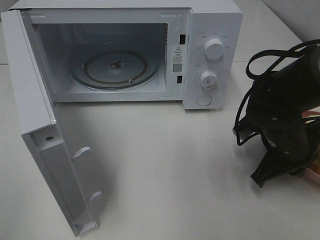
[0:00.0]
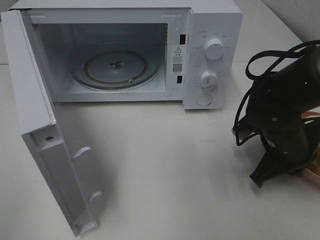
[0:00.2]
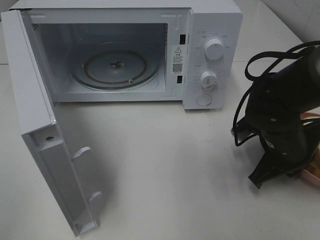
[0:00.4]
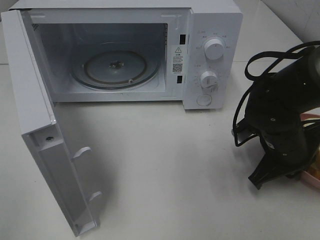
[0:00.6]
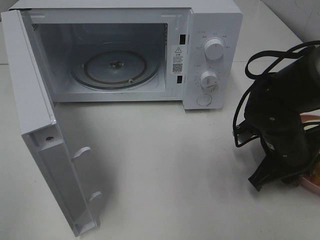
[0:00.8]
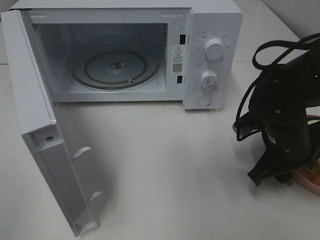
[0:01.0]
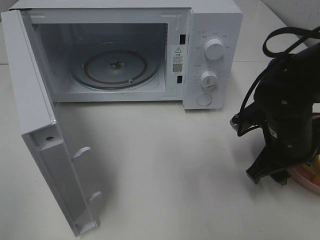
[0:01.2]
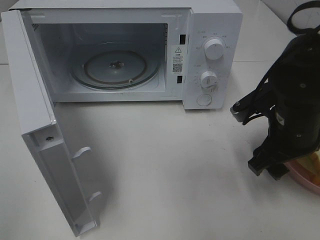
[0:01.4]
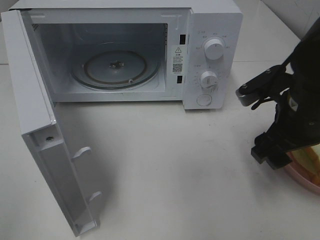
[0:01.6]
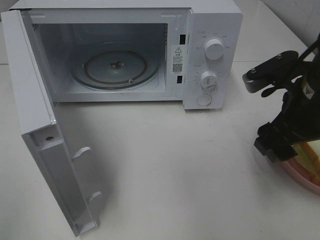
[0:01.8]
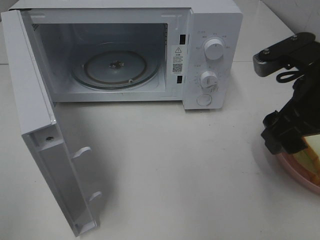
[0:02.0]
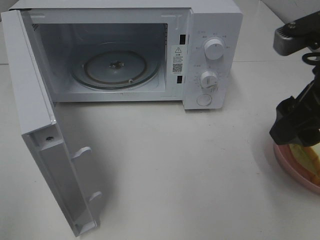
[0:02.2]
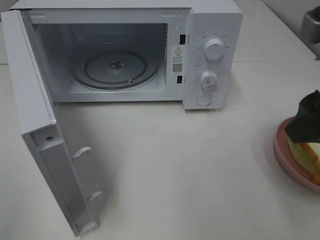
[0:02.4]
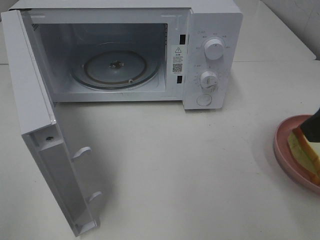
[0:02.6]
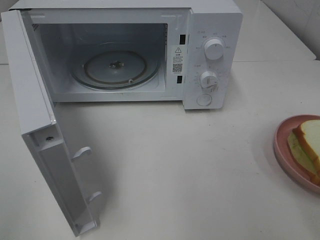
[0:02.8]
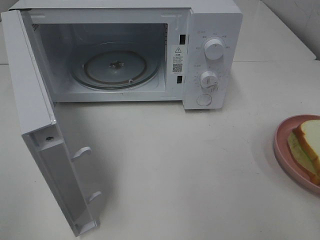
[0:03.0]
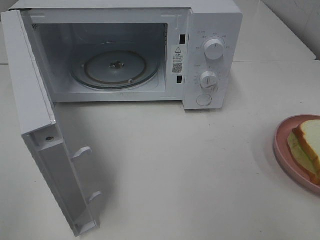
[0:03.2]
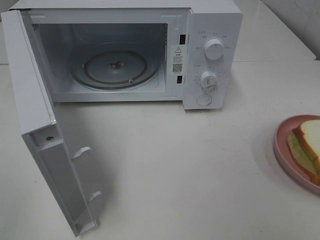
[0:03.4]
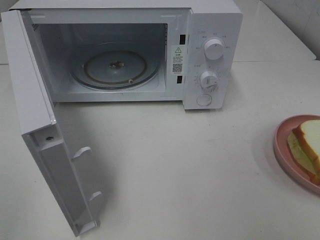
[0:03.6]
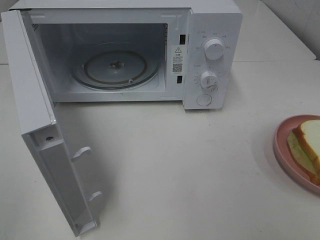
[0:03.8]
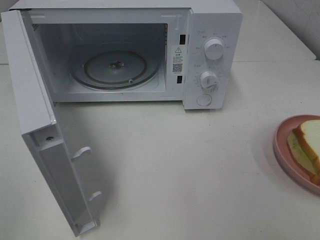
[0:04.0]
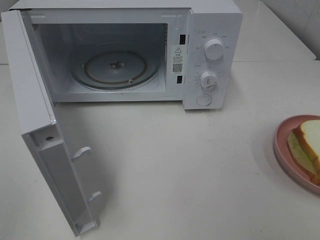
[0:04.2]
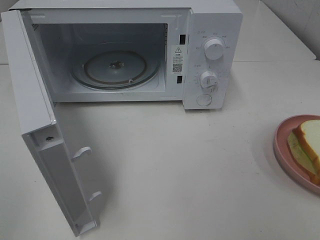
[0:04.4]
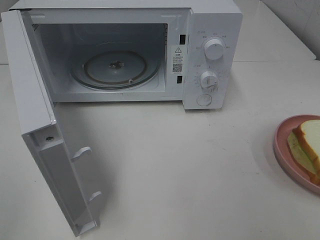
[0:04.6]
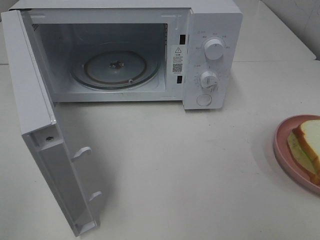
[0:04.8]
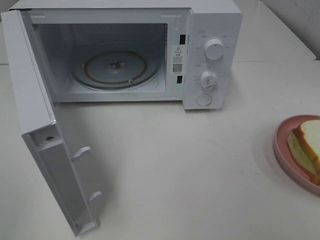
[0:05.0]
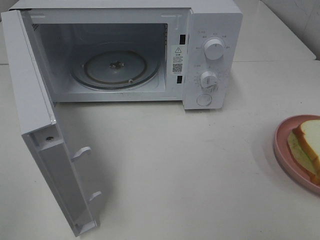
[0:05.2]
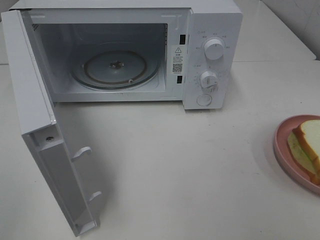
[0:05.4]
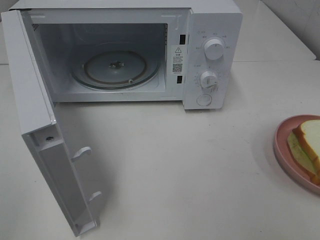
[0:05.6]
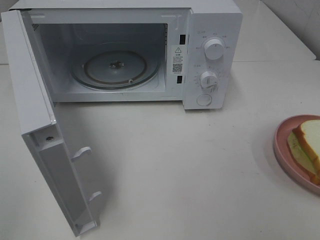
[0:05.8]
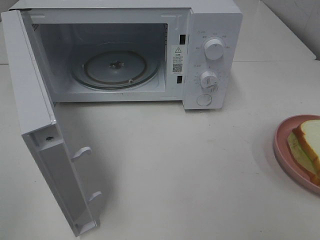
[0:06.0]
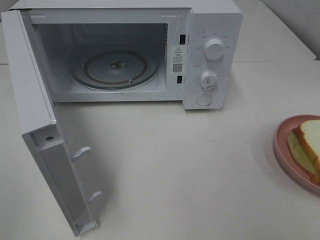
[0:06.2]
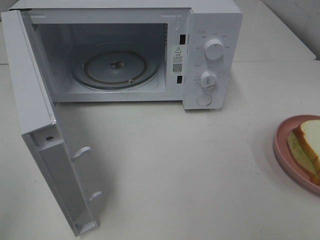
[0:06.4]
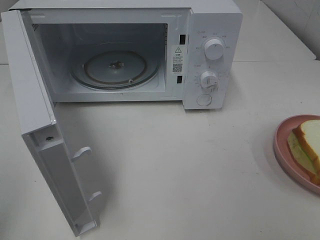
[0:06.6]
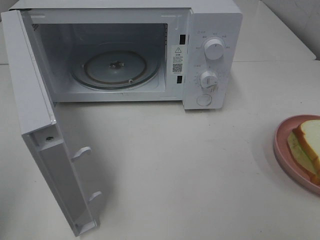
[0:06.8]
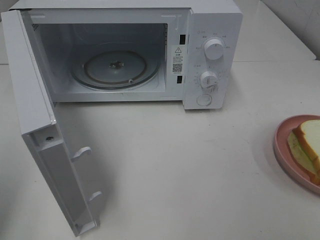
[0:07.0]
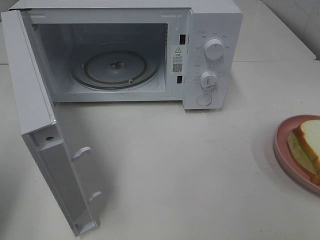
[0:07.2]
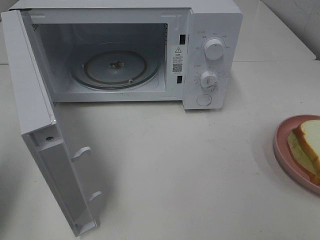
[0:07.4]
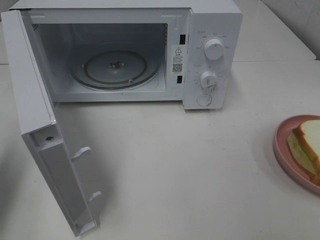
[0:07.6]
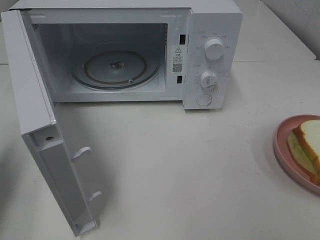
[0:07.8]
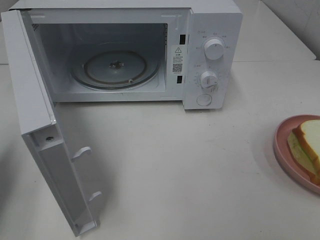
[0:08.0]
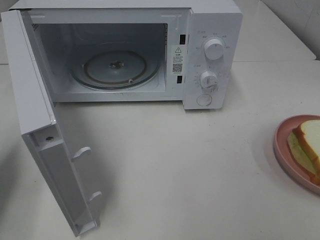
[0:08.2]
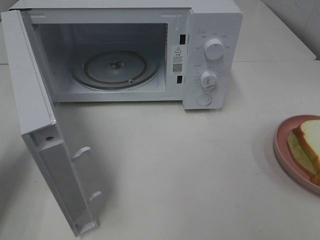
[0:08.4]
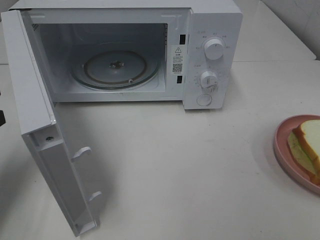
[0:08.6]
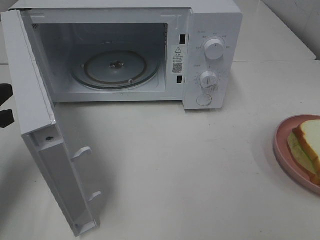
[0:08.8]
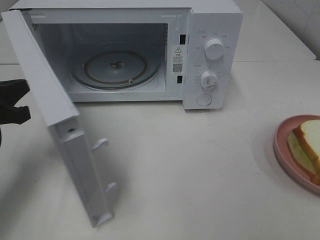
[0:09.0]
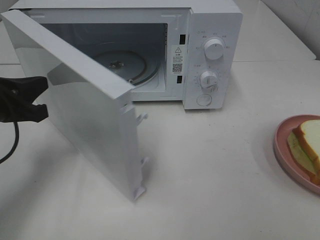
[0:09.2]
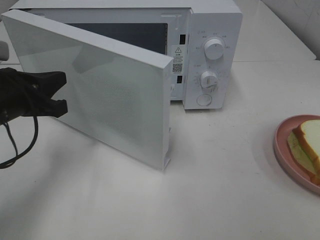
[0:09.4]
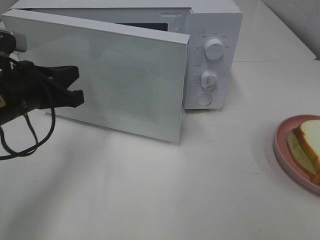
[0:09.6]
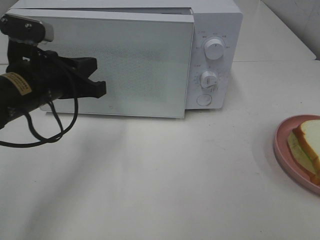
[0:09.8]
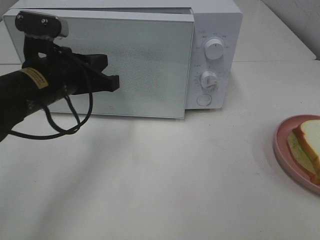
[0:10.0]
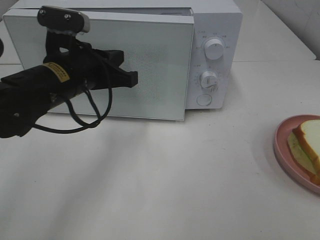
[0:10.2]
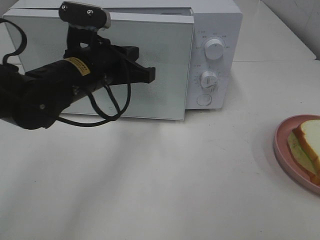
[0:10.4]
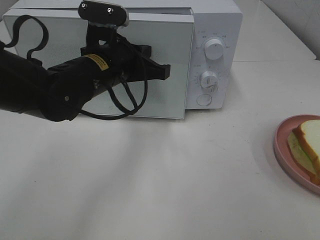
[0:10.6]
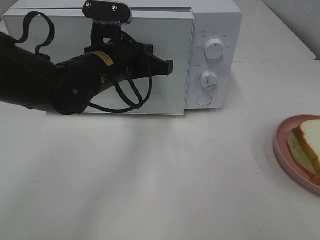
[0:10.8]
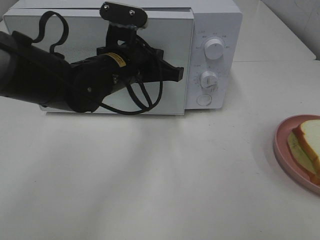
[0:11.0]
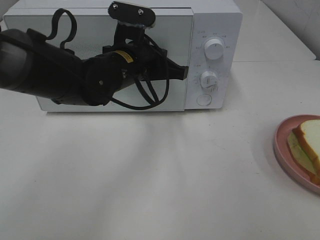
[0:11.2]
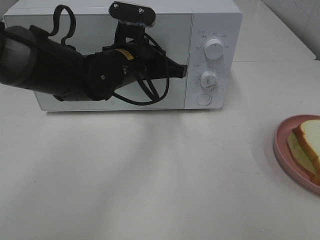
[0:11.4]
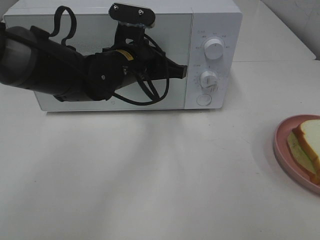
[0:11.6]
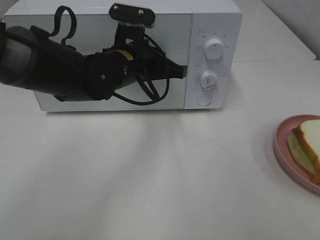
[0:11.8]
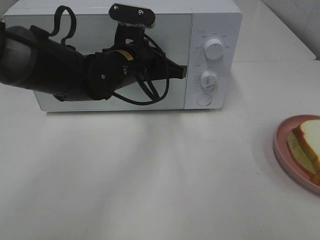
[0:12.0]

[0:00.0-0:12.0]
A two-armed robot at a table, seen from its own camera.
Task of the whole recording: Heat Sandwich.
Step, 0.0 to 2.2 s: Right hand: place the plate on the table.
0.0 to 1.6 s: The right gripper moves upward, some 10 cm, and opens up.
1.6 to 3.0 s: The right gripper heads backward, upward and to the right, covering roughly 20 cm.
4.4 to 6.0 s: Both grippers stay about where they are.
6.0 to 7.6 s: The left gripper travels forward by approximately 20 cm, and closes up.
7.6 to 9.0 s: The left gripper goes about 15 cm downward, to the right and forward.
9.0 to 10.4 s: The left gripper travels to the right by approximately 20 cm.
10.4 to 12.0 s: The left gripper ends up roughly 5 cm from where it was.

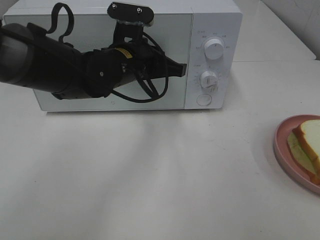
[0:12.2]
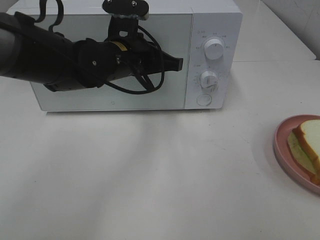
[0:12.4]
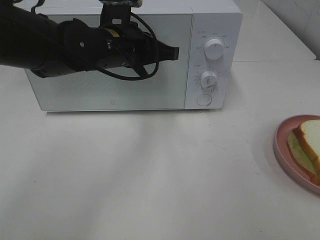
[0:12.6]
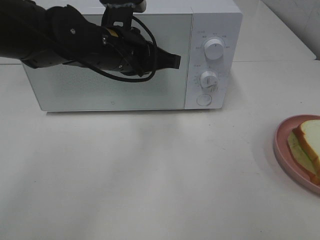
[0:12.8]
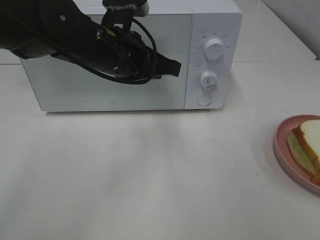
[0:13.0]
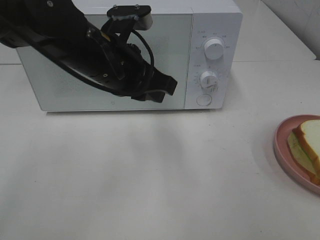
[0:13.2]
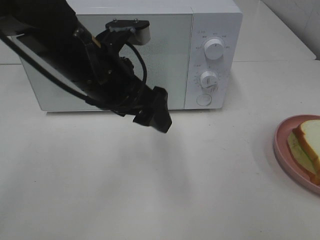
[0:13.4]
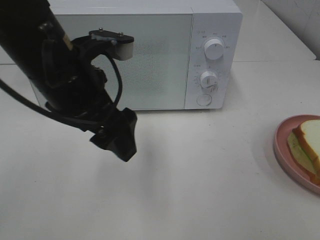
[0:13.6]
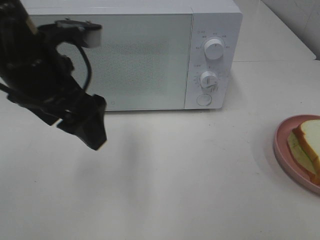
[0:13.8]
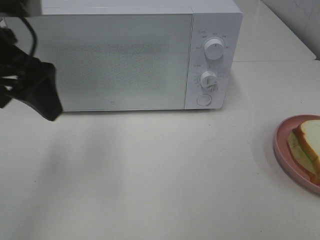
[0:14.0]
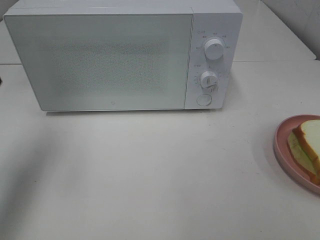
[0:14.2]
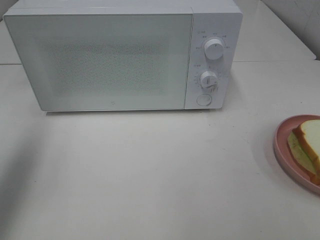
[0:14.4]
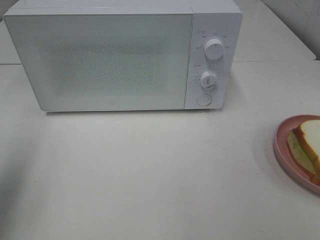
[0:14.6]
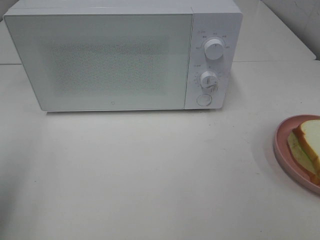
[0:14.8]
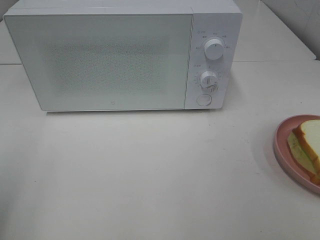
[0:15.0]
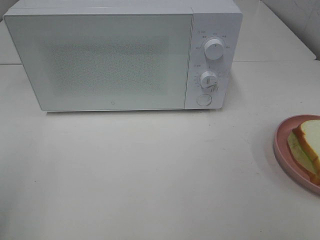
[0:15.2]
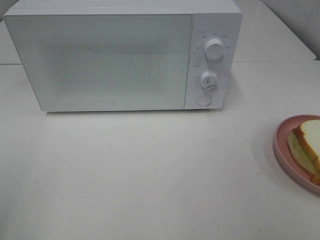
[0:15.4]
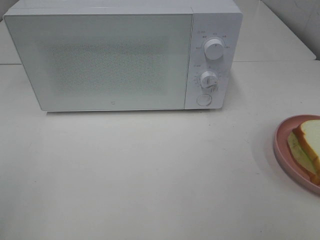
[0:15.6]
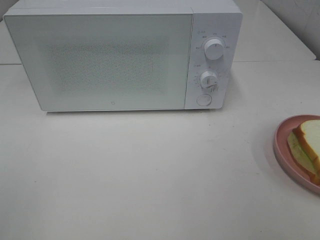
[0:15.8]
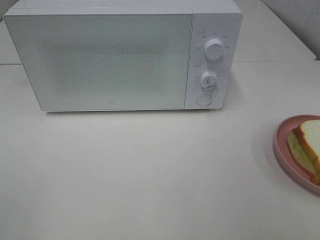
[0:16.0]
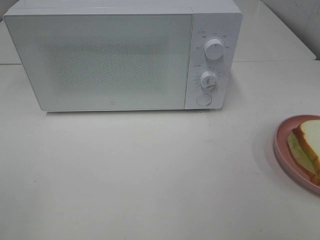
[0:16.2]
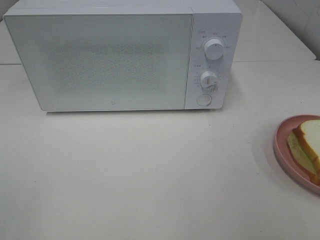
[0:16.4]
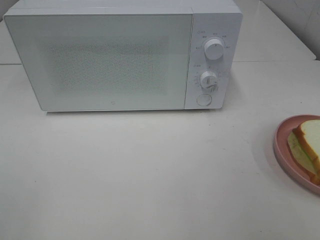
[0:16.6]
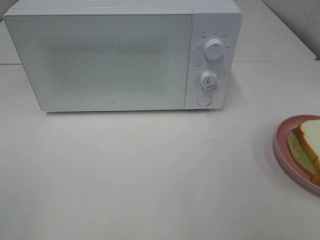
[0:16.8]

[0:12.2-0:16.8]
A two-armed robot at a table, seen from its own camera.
Task of the whole recording: Heat Sandwich.
12.2 to 13.8 s: The left gripper shifts some 15 cm backward, to the left and upward, and opens its fingers.
13.8 to 15.2 s: The left gripper moves to the left and backward, some 25 cm.

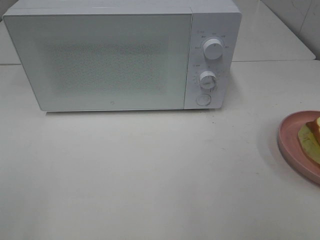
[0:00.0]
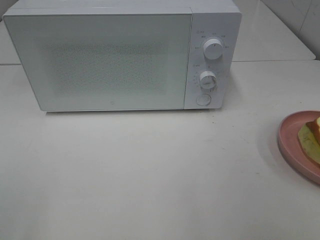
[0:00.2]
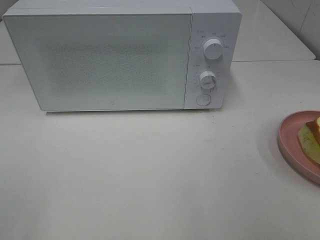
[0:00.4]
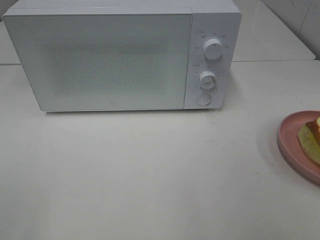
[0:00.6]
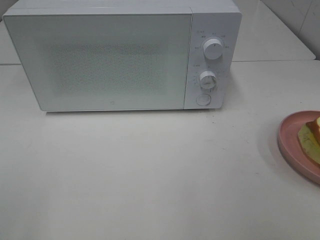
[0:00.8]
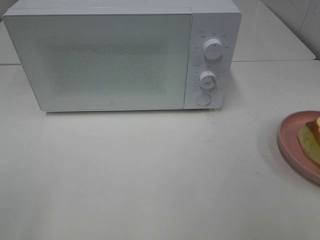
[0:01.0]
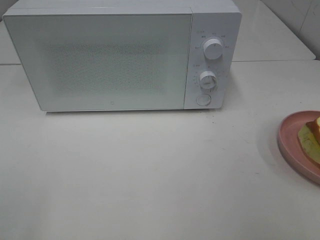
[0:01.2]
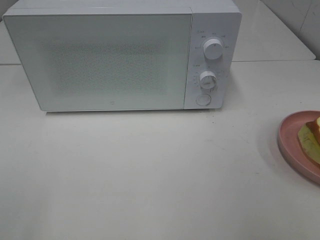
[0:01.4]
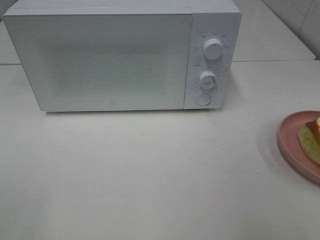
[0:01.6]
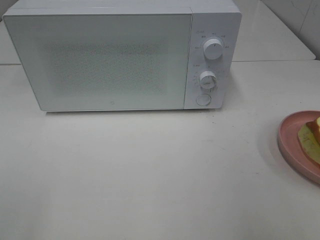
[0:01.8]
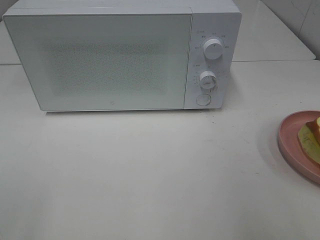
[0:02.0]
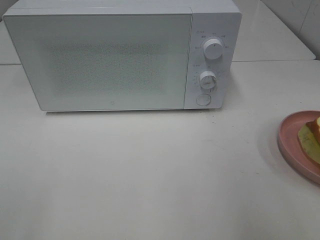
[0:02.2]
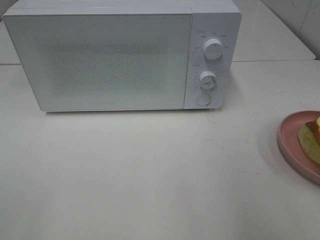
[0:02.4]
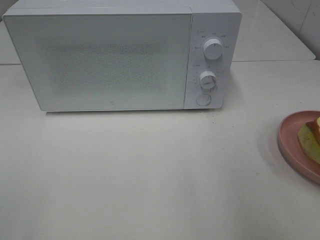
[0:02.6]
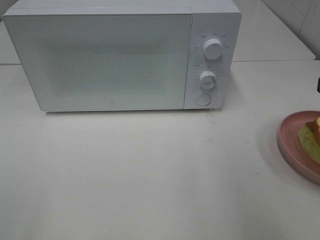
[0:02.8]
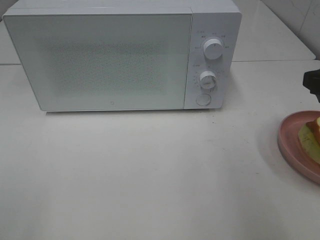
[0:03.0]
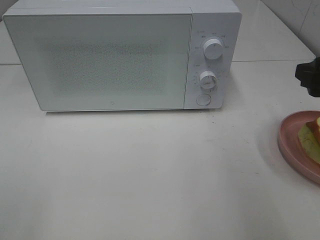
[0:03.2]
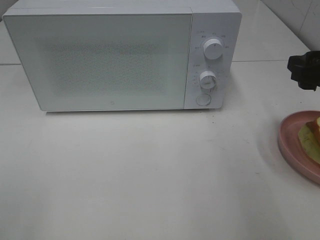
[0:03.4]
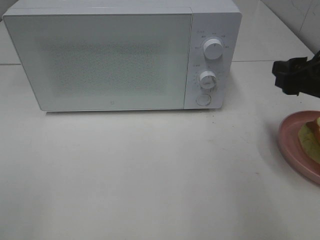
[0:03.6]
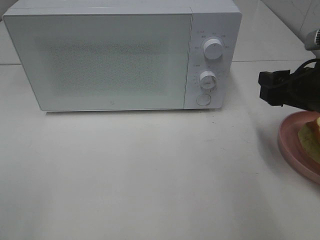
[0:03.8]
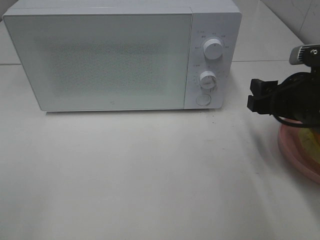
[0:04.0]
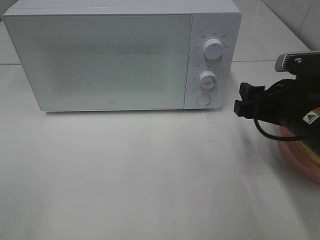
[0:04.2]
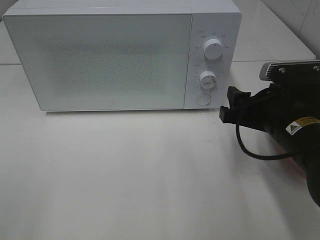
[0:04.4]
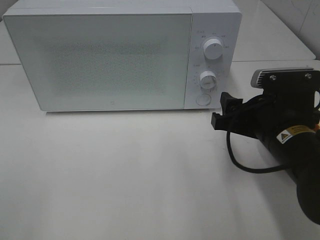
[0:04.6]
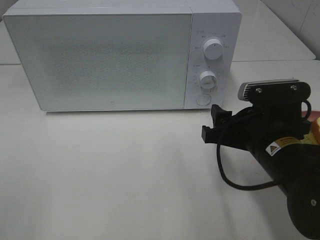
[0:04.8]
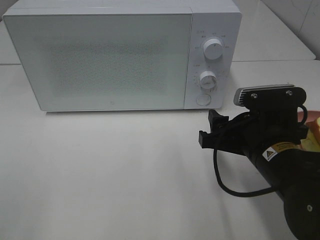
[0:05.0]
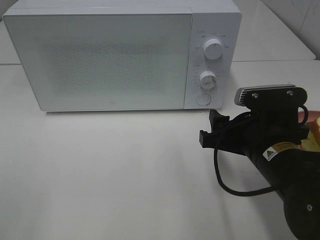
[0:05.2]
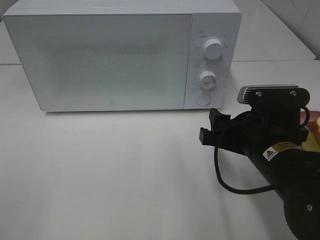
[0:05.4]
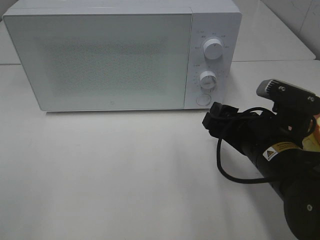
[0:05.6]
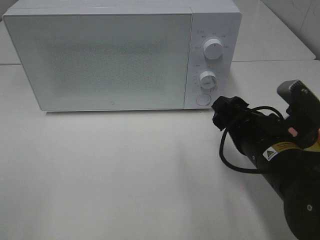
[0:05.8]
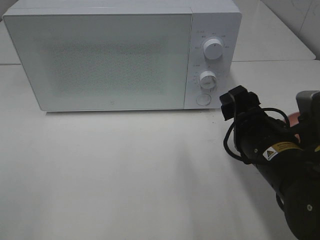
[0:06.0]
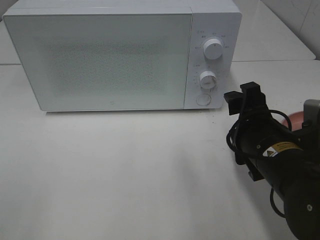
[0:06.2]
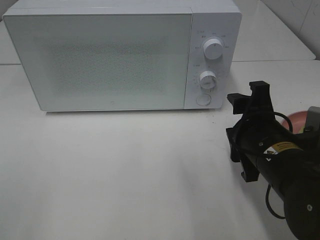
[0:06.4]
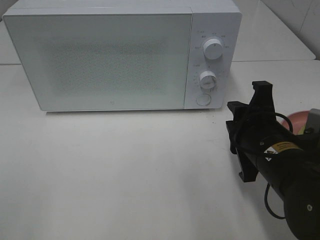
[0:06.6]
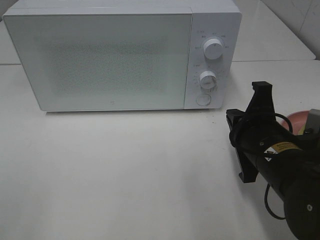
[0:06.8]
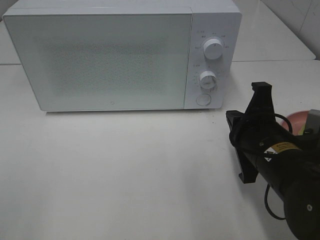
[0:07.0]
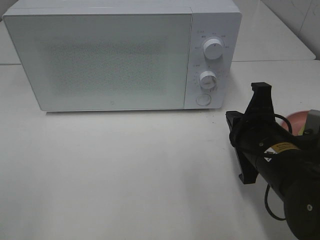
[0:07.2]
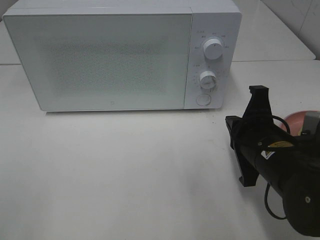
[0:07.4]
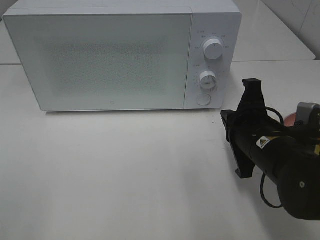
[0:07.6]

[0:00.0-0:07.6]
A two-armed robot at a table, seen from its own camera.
Task of the whole recording: Heat Sandwich.
1.6 to 3.0 s: The right gripper travels forward and downward by about 15 cm.
3.0 to 4.6 s: The right gripper travels to the left and downward by about 15 cm.
6.0 to 7.6 s: The right gripper closes its fingers.
